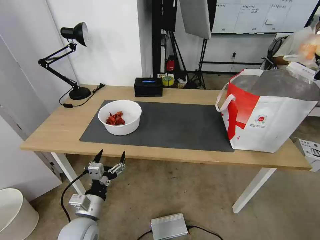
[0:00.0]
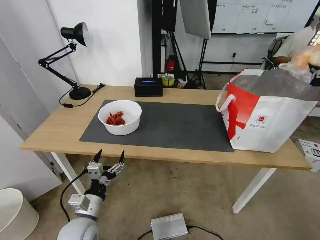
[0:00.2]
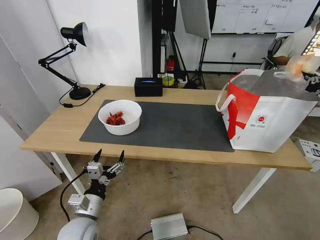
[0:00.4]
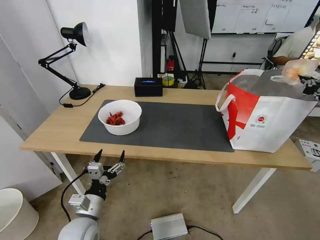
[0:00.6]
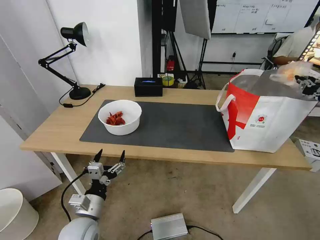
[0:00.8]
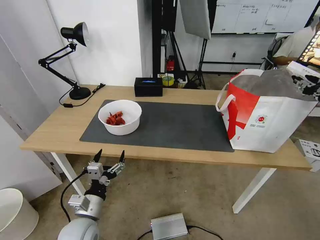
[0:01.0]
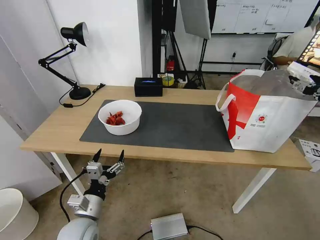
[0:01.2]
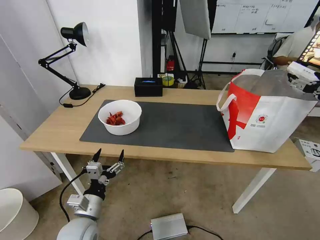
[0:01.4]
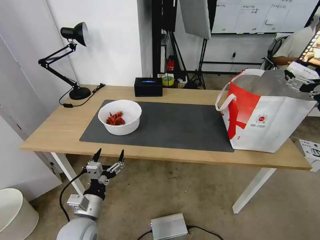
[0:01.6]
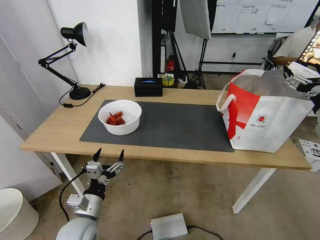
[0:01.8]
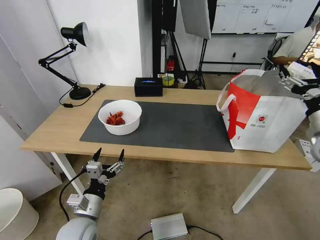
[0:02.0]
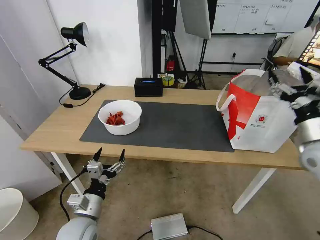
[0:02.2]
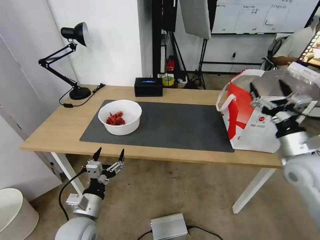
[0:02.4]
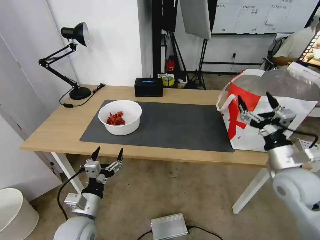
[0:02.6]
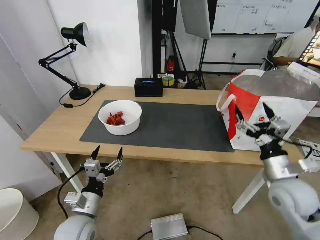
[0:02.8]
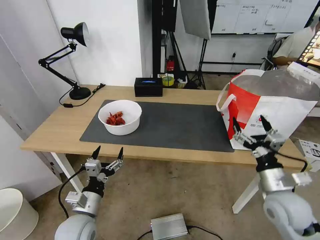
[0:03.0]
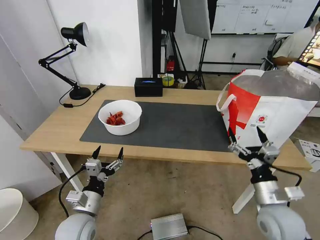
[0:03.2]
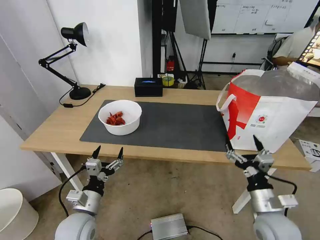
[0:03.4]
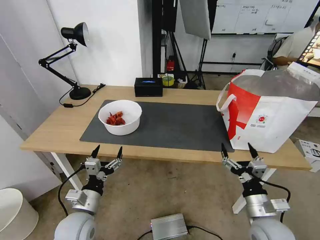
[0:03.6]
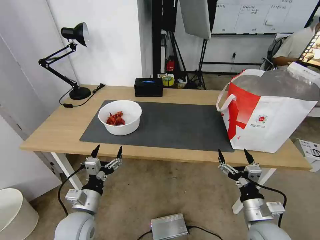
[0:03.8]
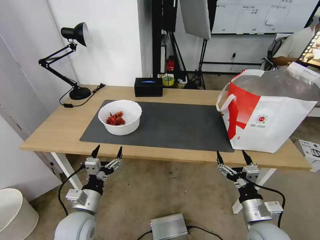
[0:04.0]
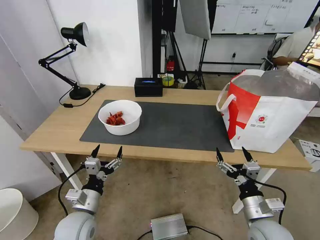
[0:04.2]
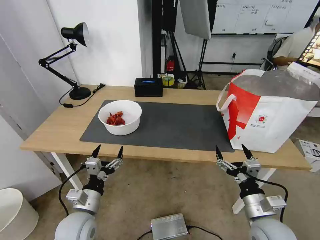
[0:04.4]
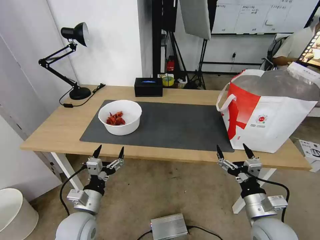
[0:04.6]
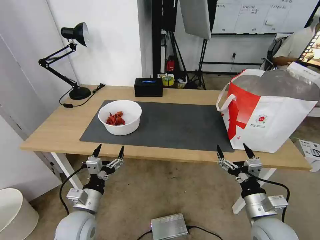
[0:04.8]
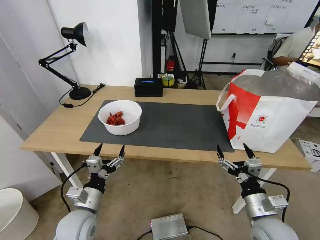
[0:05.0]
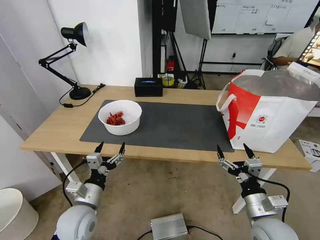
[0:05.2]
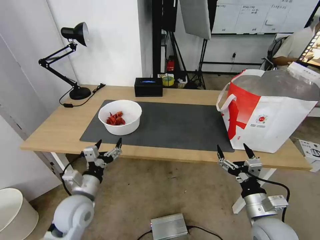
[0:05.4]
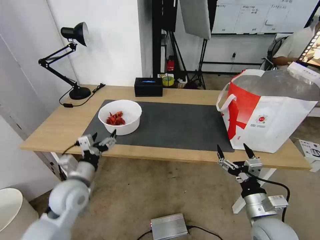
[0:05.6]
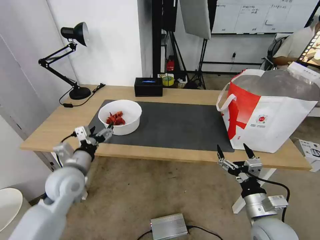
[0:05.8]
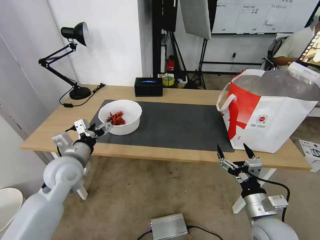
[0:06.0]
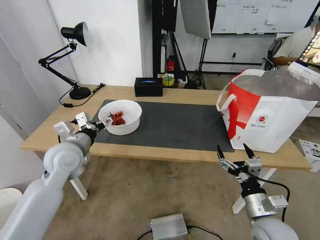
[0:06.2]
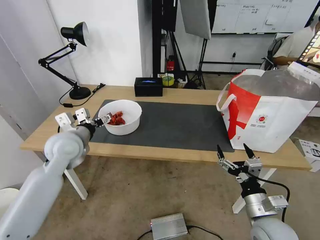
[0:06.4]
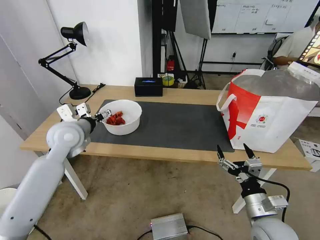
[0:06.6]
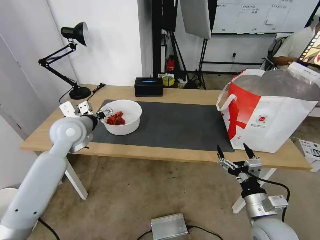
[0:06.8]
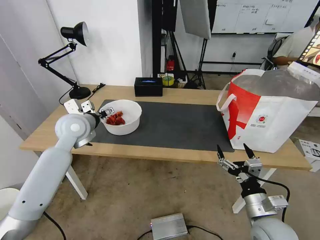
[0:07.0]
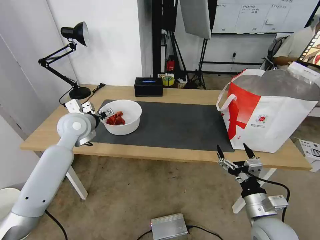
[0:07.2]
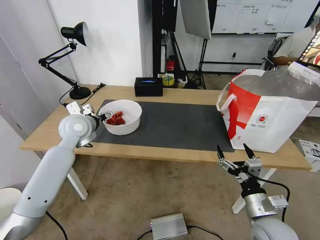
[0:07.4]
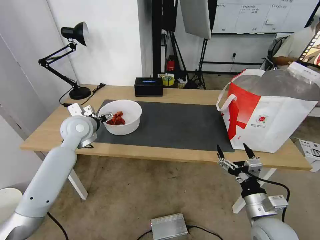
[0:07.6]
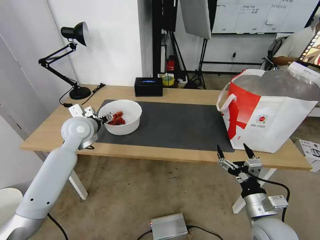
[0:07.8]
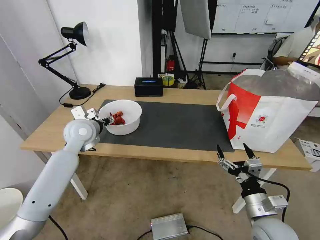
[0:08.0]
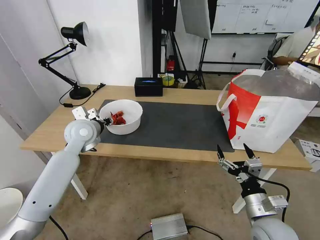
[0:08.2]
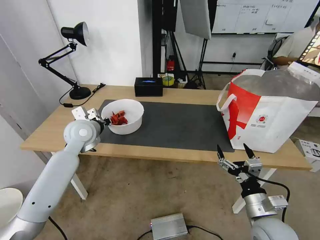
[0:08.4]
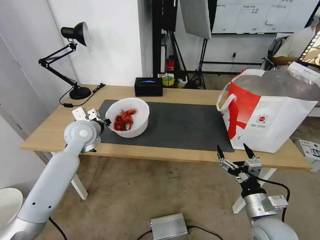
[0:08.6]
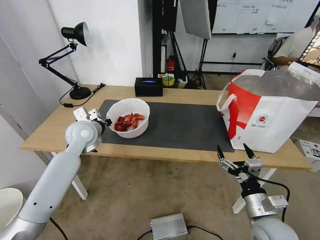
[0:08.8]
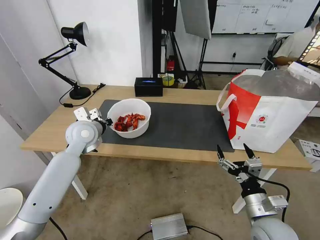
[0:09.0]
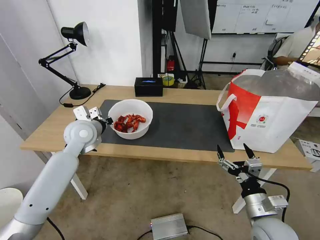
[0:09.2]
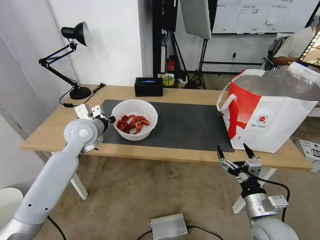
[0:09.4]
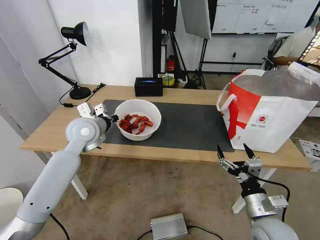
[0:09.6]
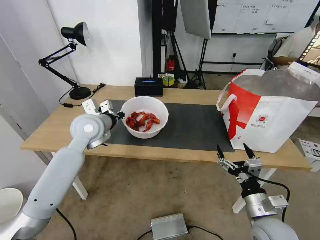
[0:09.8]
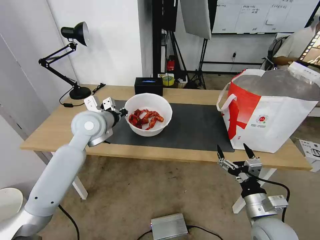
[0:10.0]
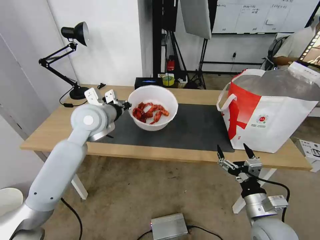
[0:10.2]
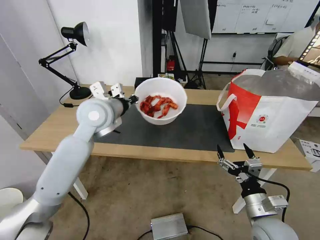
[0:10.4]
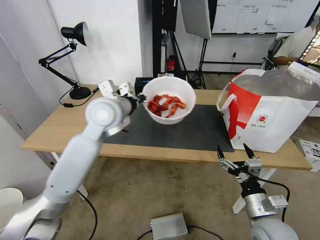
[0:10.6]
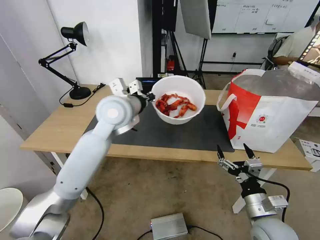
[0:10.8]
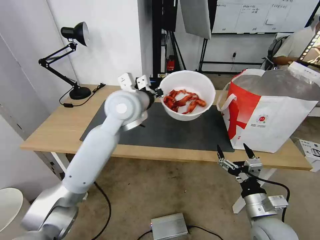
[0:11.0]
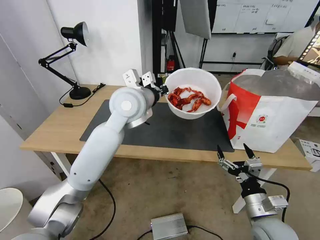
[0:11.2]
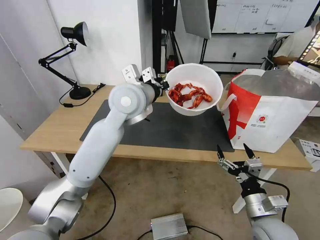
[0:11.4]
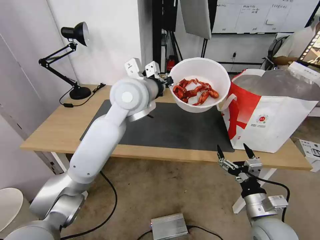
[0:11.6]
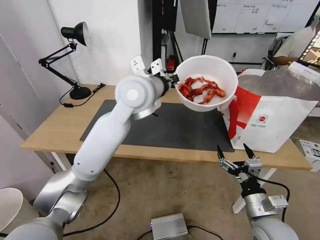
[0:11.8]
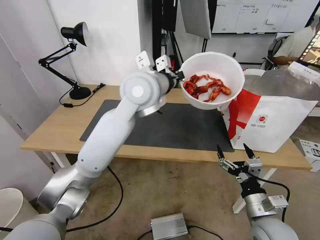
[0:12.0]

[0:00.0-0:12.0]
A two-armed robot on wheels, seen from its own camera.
Task of the whole recording: Pick up the trash from the table and place it into the takeout bag.
0:00.0 to 0:01.6: The right gripper opens up.
0:01.6 to 0:03.0: The right gripper heads downward, to the left and backward, covering some 25 cm.
0:03.0 to 0:04.4: The right gripper is displaced backward by about 5 cm.
0:04.4 to 0:06.0: The left gripper is displaced forward and upward by approximately 15 cm.
0:06.0 to 0:07.6: The left gripper goes some 15 cm forward.
0:07.6 to 0:09.0: The left gripper closes up.
0:09.0 to 0:10.4: The left gripper is displaced upward and to the right by approximately 10 cm.
0:10.4 to 0:12.0: The left gripper moves to the right and upward, approximately 15 cm.

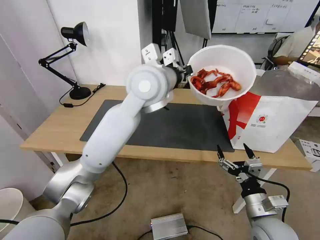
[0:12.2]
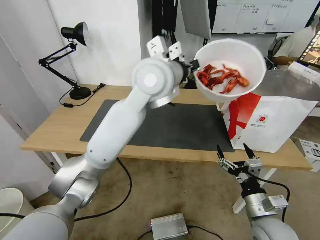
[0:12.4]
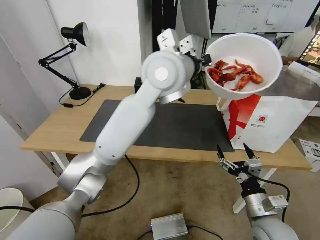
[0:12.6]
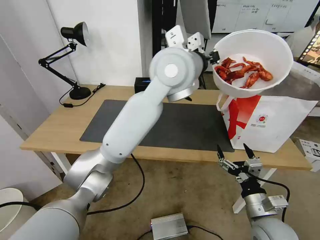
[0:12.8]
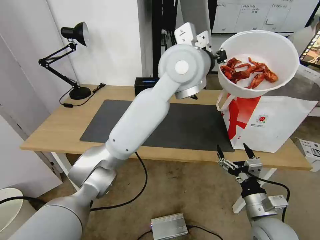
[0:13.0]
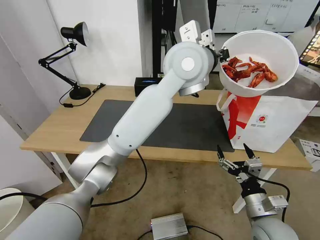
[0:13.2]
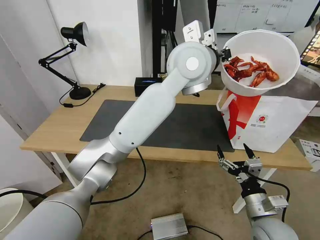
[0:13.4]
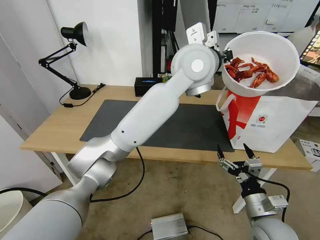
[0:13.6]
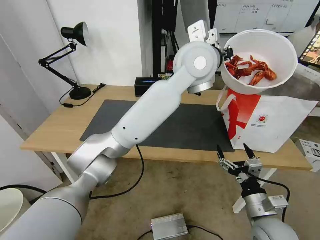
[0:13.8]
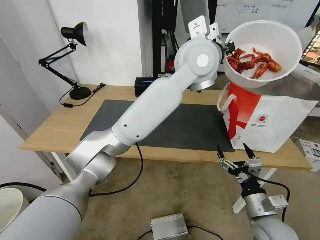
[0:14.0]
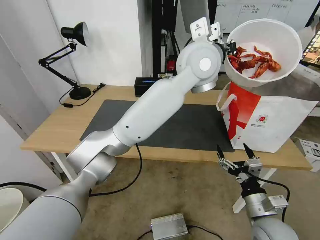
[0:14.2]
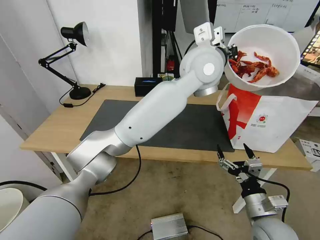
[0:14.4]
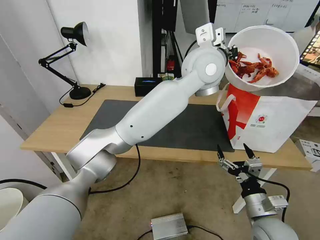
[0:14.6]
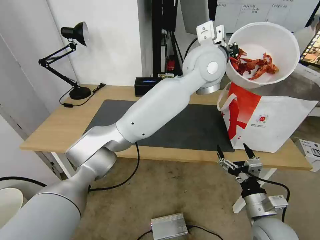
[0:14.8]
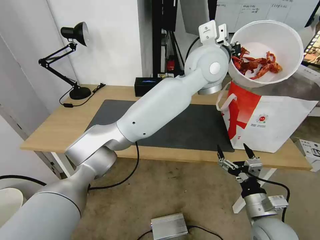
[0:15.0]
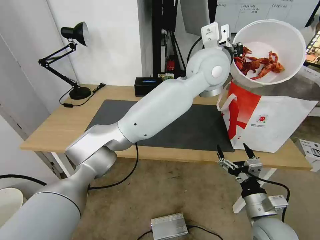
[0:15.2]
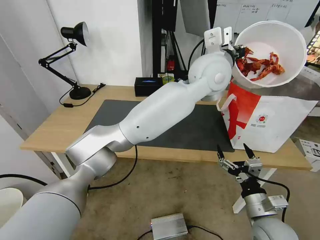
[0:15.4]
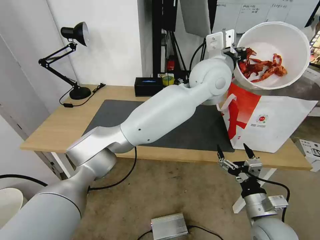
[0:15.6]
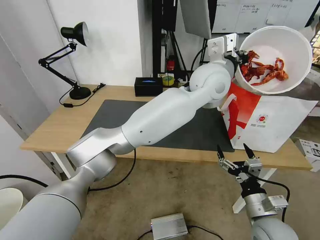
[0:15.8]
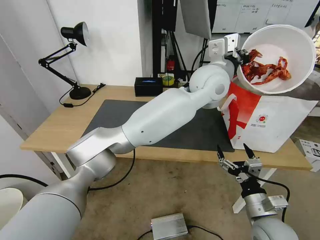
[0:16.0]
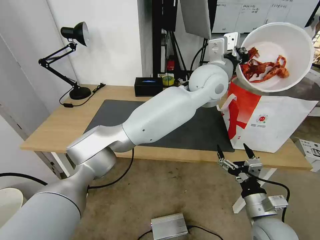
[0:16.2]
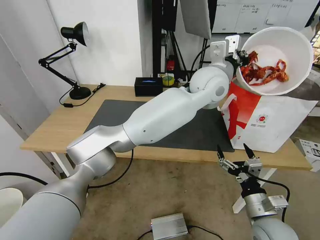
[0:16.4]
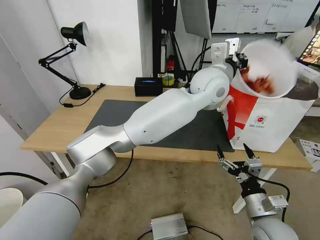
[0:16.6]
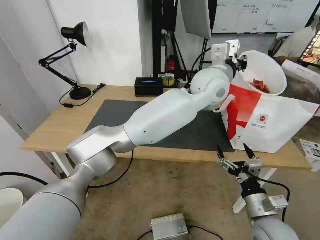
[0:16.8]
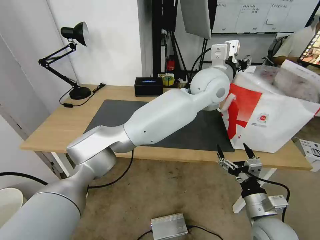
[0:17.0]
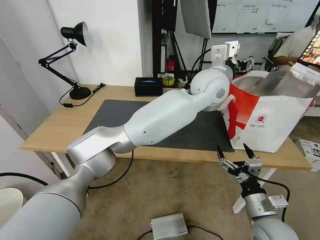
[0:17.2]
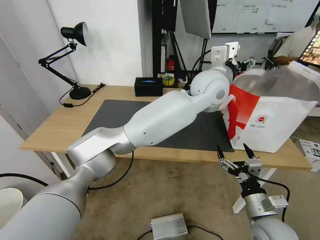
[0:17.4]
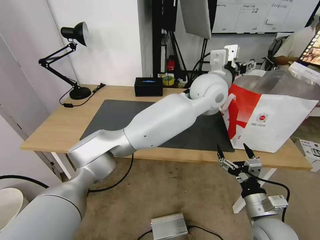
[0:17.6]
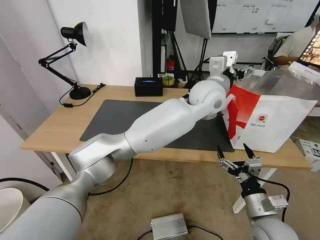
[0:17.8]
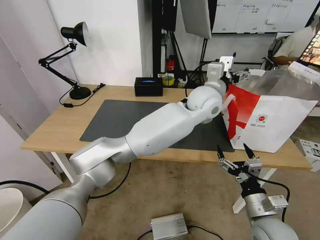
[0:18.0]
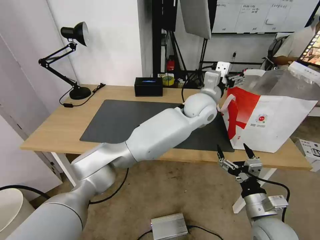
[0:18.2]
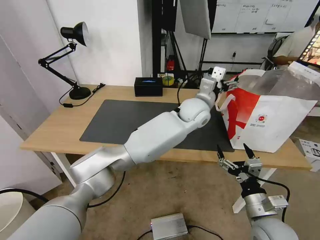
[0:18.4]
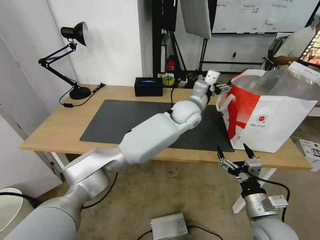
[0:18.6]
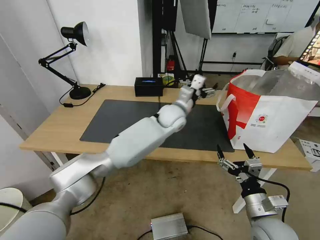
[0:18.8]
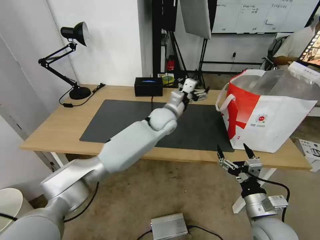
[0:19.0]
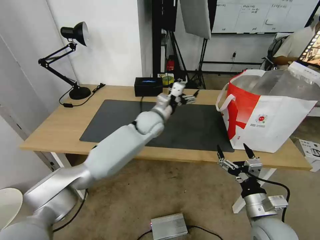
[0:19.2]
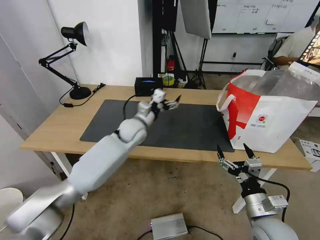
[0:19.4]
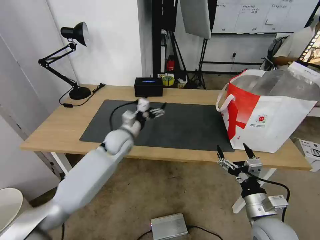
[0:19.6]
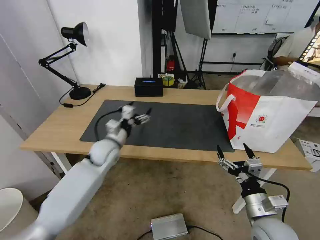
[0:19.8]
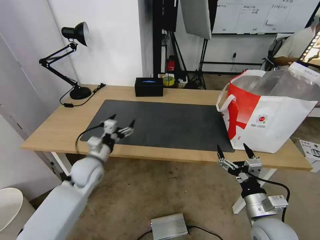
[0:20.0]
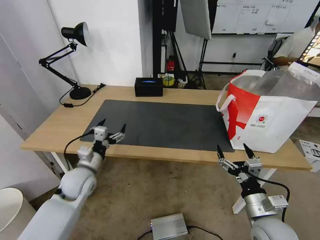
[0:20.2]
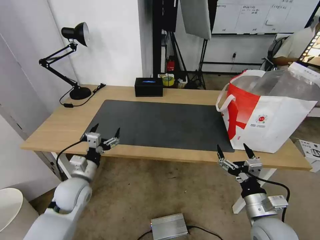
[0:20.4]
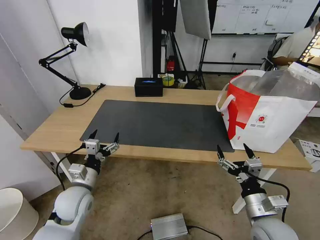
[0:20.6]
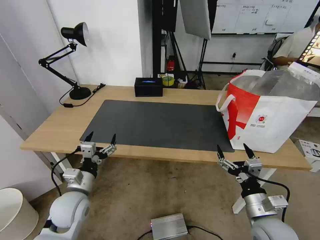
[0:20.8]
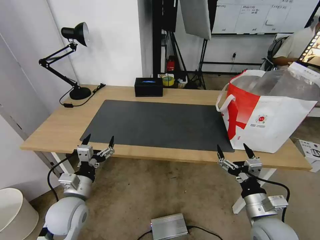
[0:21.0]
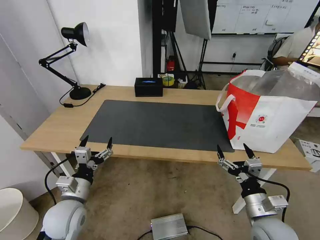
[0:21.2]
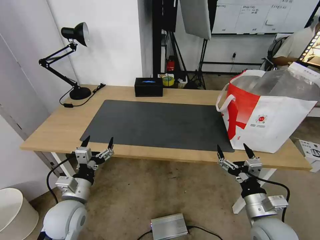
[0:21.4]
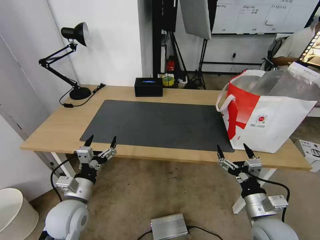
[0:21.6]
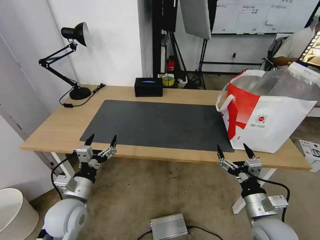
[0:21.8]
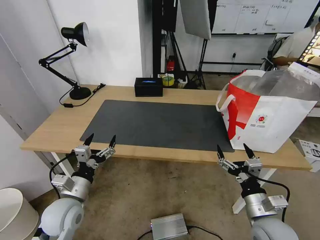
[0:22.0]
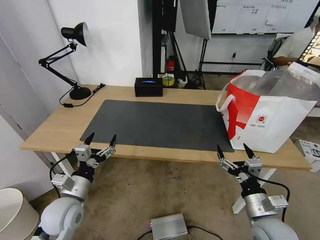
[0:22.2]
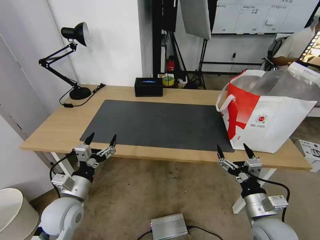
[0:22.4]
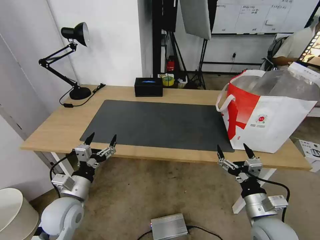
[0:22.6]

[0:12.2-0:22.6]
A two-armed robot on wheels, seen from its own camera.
Task of the whole recording: Pick up the trash from the table and place it into the takeout bag.
0:12.2 to 0:13.6: The left gripper moves to the right, about 10 cm.
0:13.6 to 0:15.2: The grippers move only a little.
0:15.2 to 0:16.6: The left gripper moves downward, some 5 cm.
0:16.6 to 0:18.2: The left gripper moves downward, roughly 10 cm, and opens its fingers.
0:18.2 to 0:19.6: The left gripper is displaced to the left and downward by some 30 cm.
0:19.6 to 0:21.2: The left gripper heads backward and to the left, covering about 25 cm.
0:21.2 to 0:22.6: The grippers move only a little.
